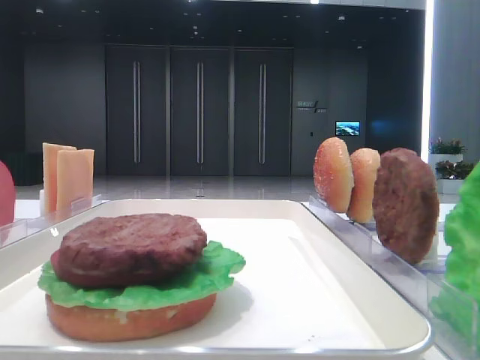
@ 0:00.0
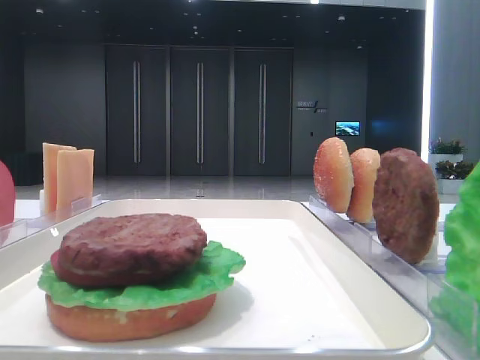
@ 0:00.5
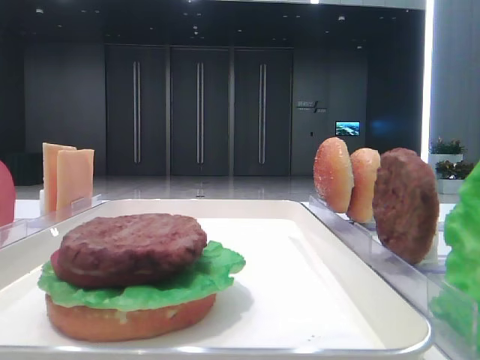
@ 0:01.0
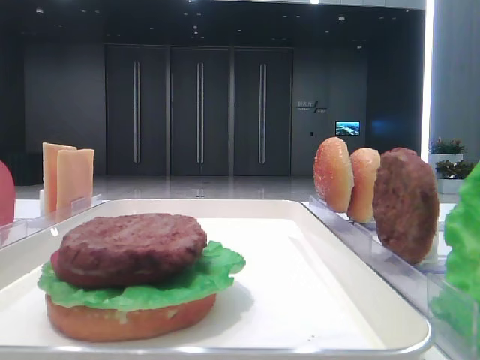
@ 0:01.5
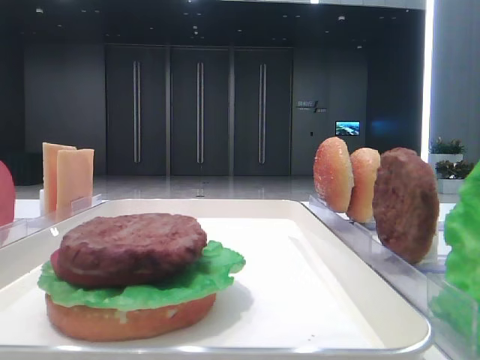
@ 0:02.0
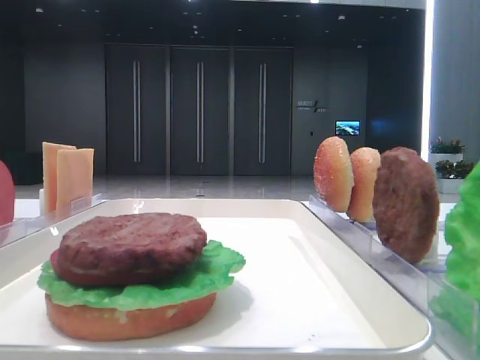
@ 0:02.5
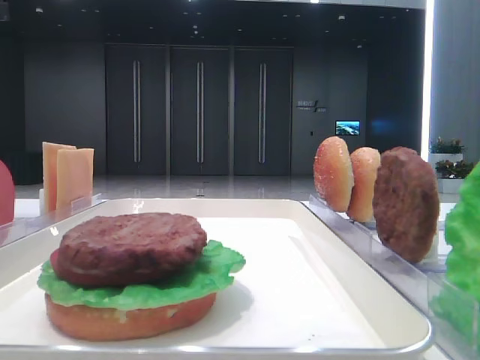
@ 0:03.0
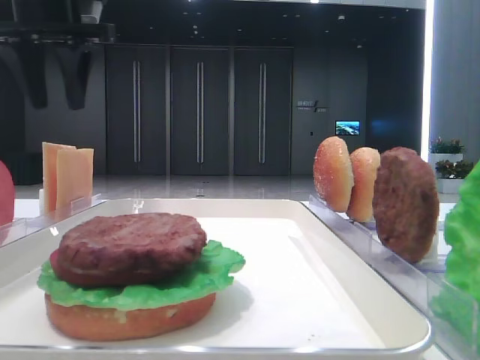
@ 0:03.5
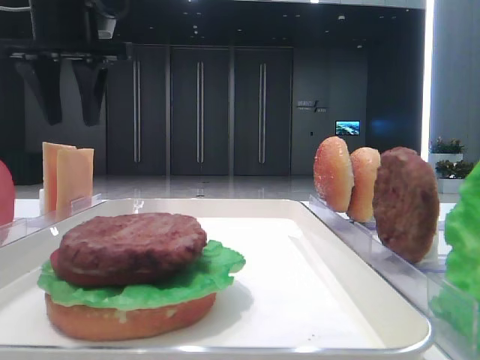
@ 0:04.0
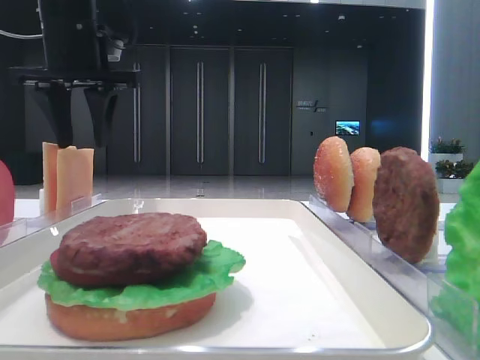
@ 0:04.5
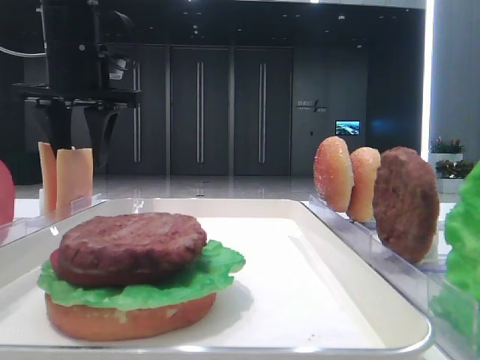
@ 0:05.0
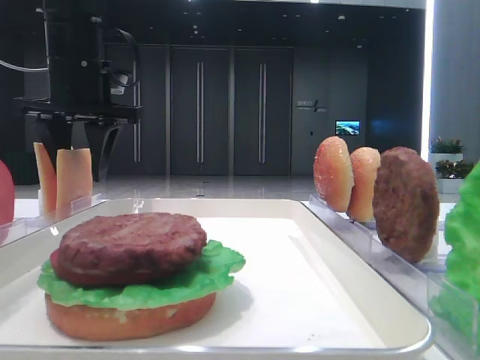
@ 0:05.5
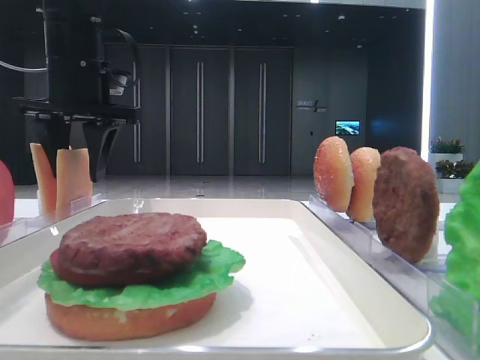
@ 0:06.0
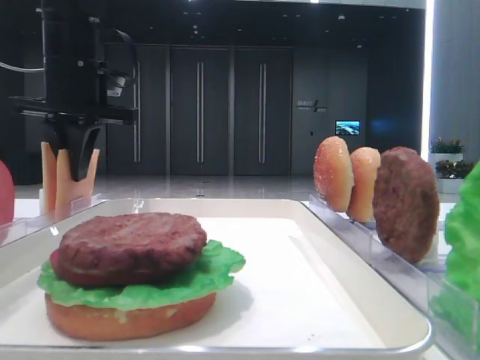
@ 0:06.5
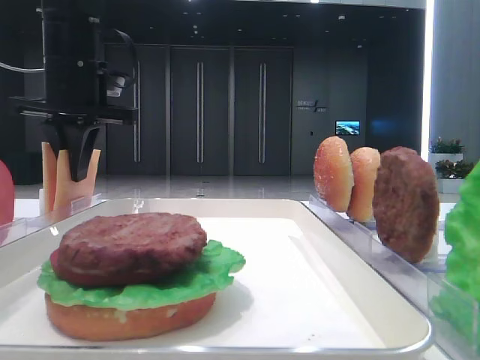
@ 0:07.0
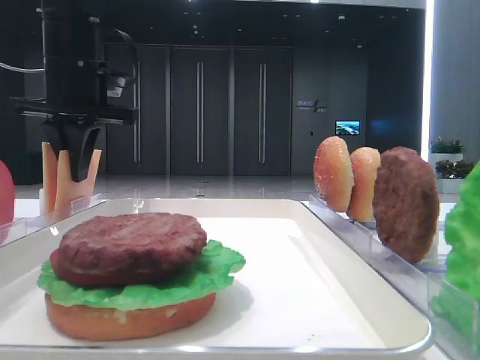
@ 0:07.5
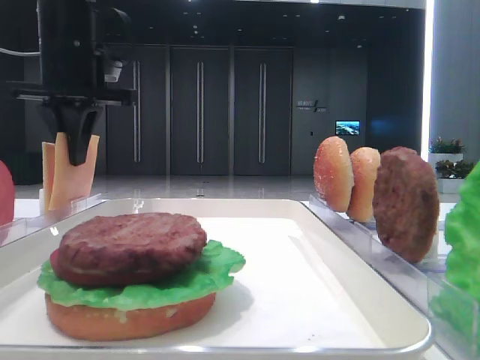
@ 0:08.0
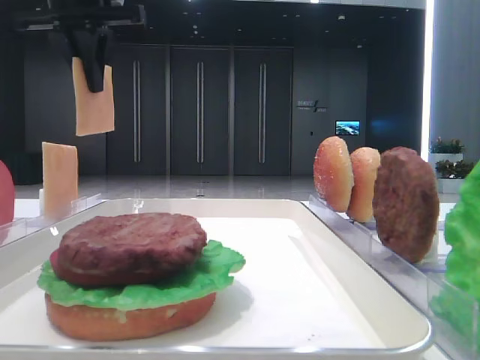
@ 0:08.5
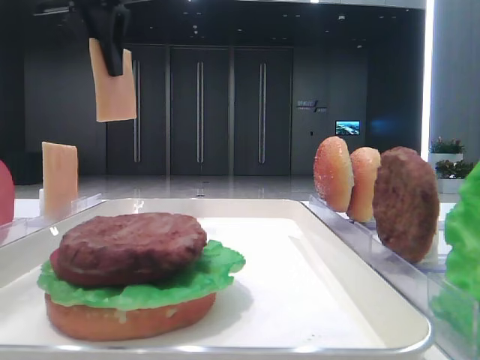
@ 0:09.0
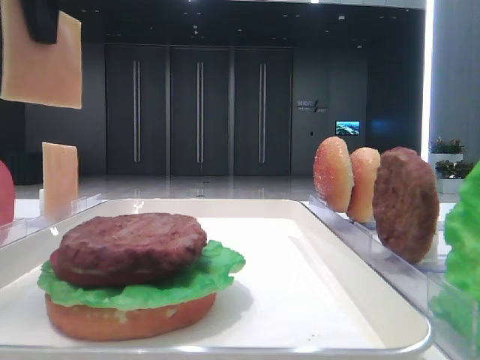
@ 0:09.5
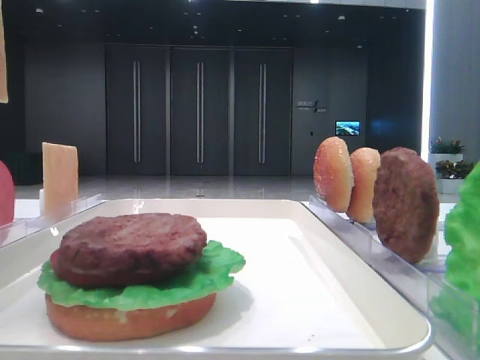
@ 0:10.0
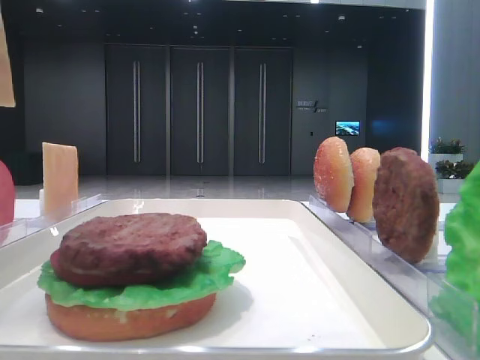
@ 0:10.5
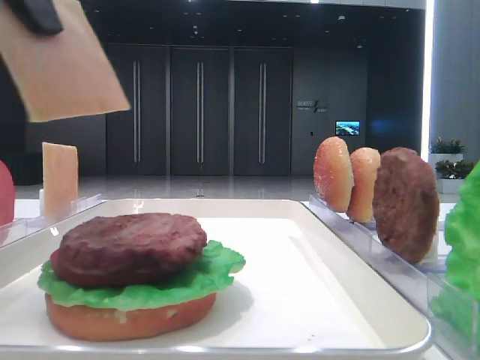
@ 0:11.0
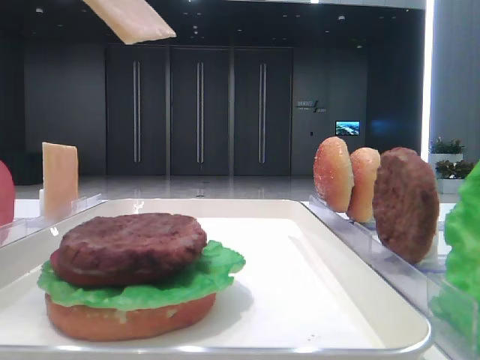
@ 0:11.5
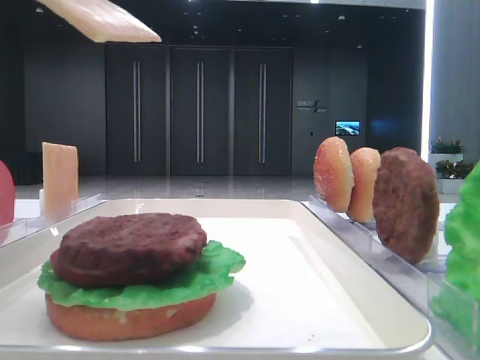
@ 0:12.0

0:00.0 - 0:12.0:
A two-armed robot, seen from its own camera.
Step, 0:00.0 - 0:07.5: Pick up the cheese slice with the left hand.
0:02.0 - 0:04.0: The left gripper moves forward and to the right, some 30 cm.
0:04.0 - 0:06.0: The left gripper heads downward, covering approximately 5 cm.
0:06.0 - 0:08.0: The left gripper closes.
0:08.0 - 0:10.0: The left gripper heads backward and upward, covering about 20 cm.
0:10.0 - 0:12.0: The left gripper shifts about 10 cm downward.

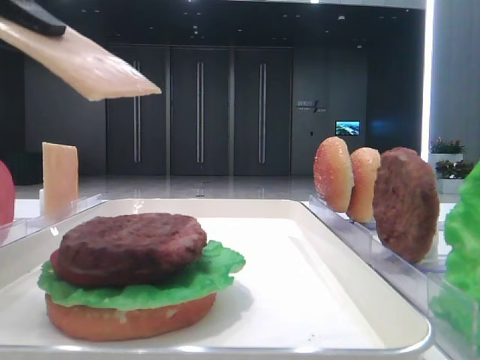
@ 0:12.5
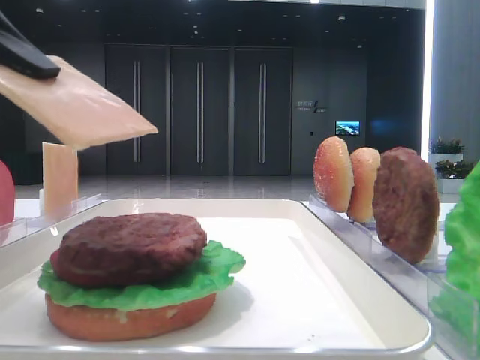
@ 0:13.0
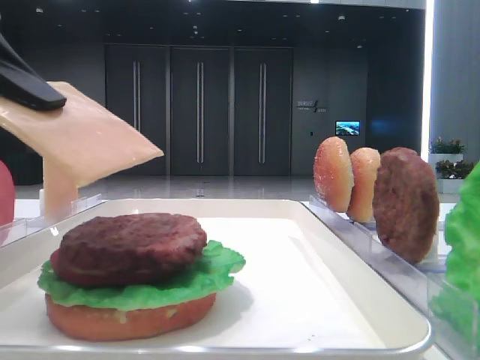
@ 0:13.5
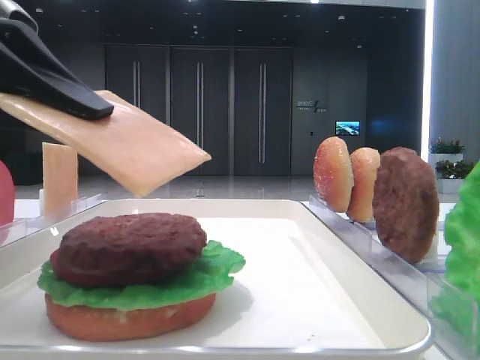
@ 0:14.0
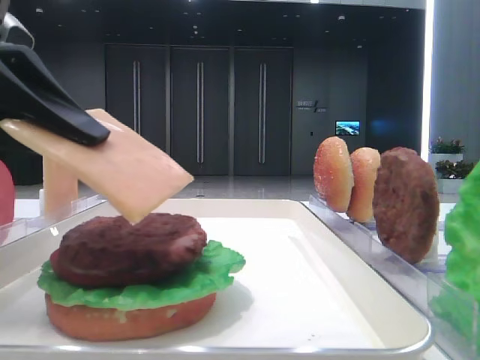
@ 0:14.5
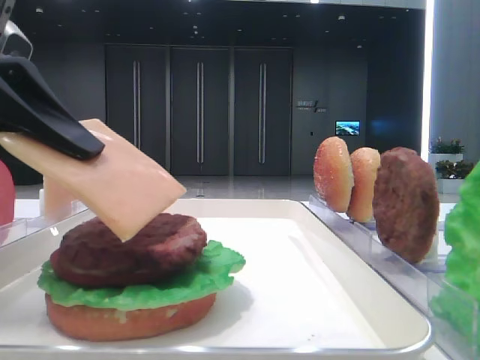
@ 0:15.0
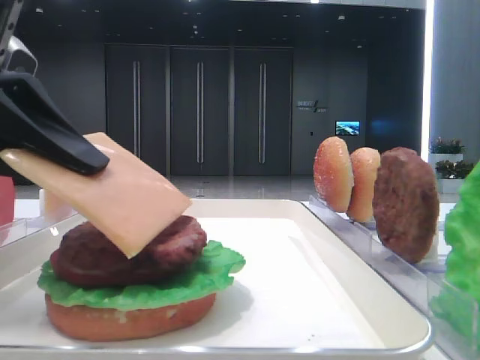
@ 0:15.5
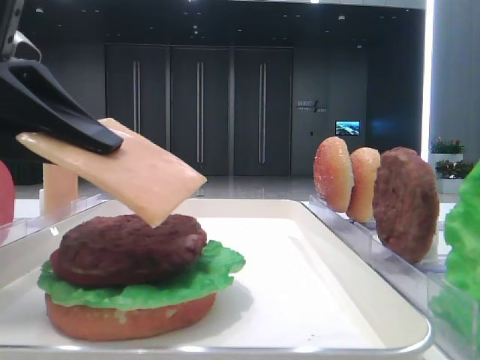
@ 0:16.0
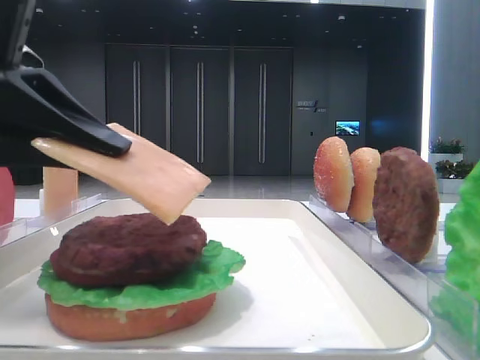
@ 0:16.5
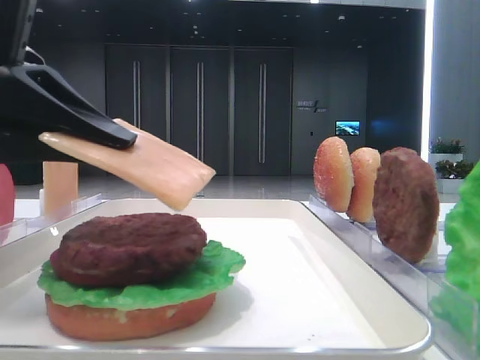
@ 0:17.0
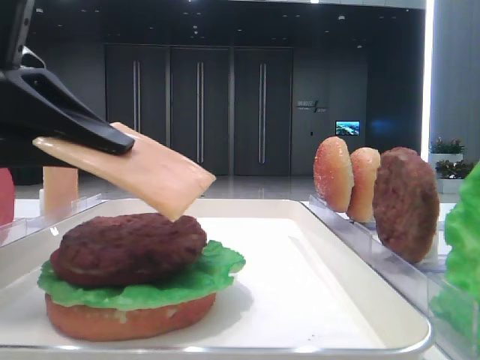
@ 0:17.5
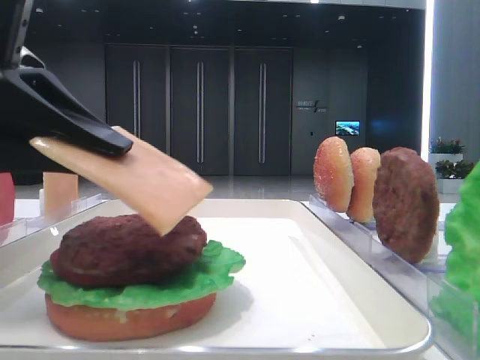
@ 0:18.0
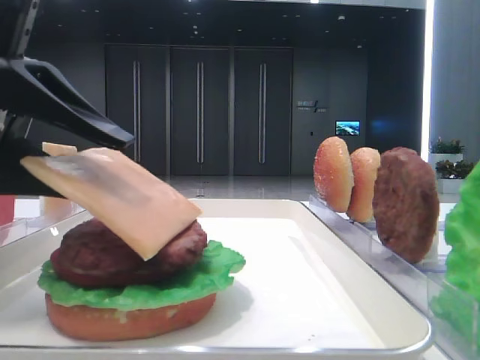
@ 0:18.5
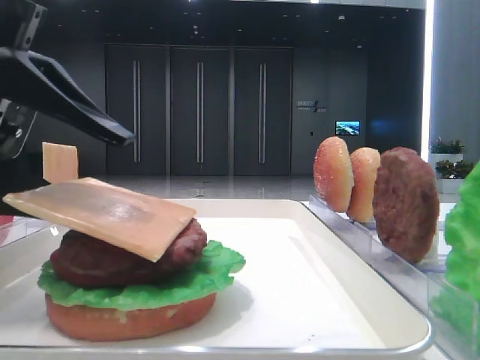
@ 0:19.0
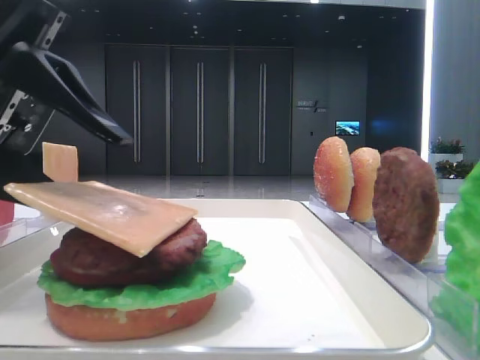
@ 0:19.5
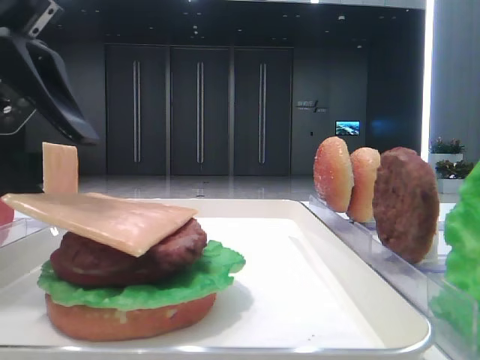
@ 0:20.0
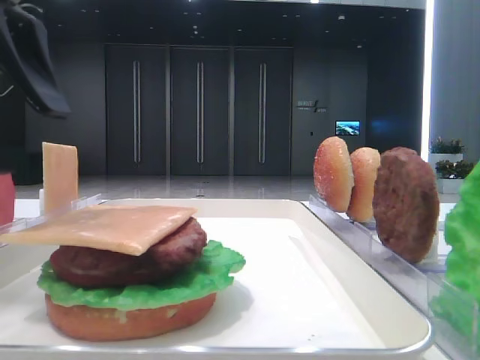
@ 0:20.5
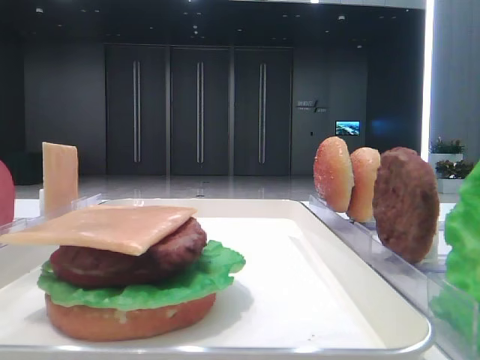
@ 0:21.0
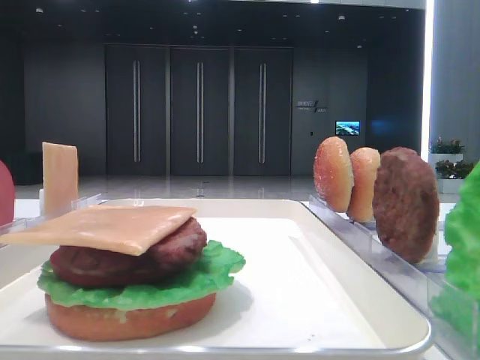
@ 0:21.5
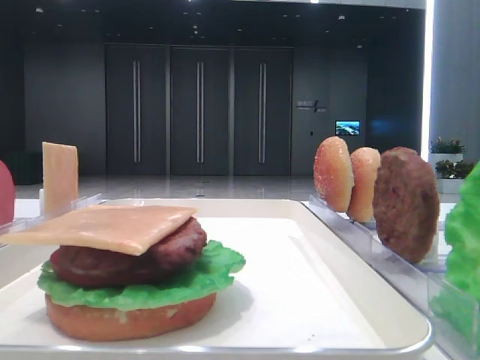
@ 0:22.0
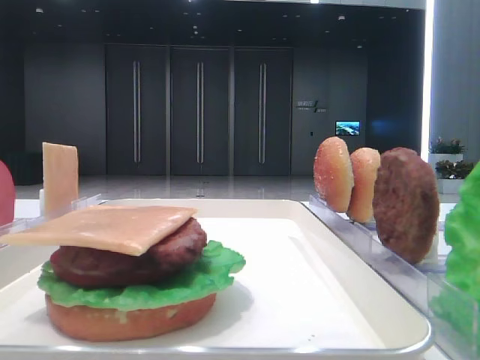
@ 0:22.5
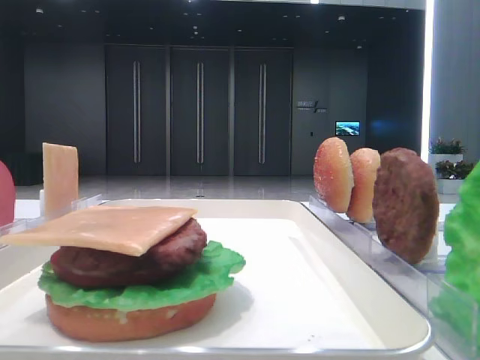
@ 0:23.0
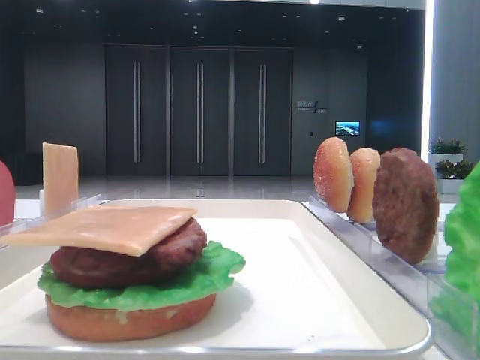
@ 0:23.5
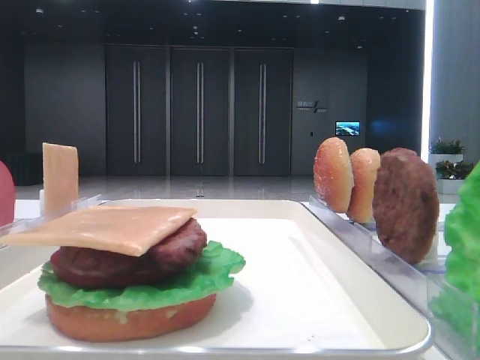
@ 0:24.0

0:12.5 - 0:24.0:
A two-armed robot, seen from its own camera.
Step, 0:12.5 - 0:20.0: Place the cheese slice on the patty with the left hand.
0:12.5 - 0:14.5: The left gripper moves downward, roughly 5 cm.
0:14.5 - 0:16.5: There are only small adjustments of the grippers.
0:16.5 - 0:18.5: The left gripper opens up.
0:18.5 - 0:20.0: The left gripper opens its fingers.
0:20.0 - 0:22.0: The left gripper is displaced upward and to the left by roughly 20 cm.

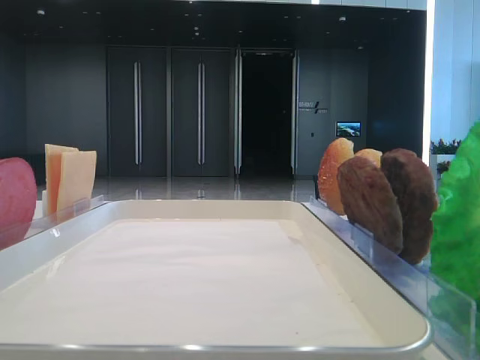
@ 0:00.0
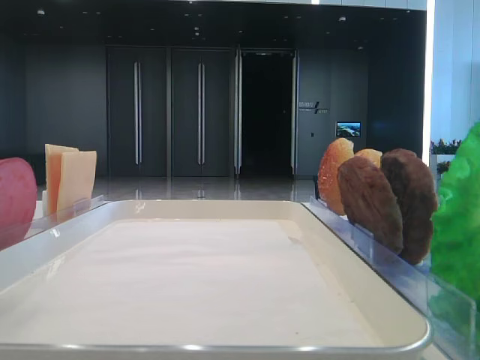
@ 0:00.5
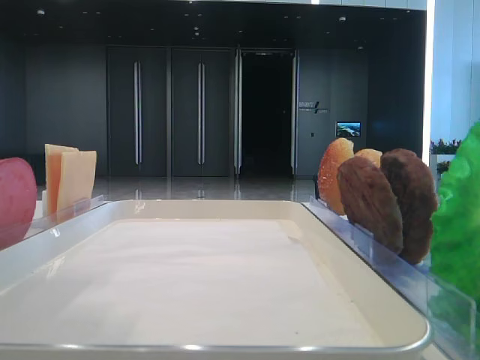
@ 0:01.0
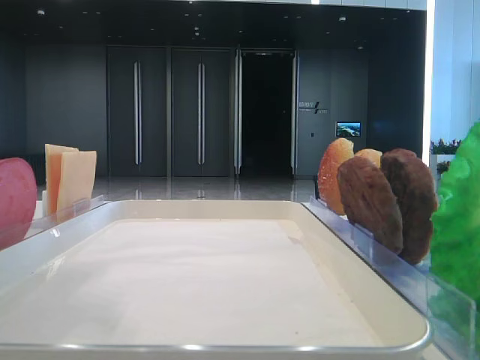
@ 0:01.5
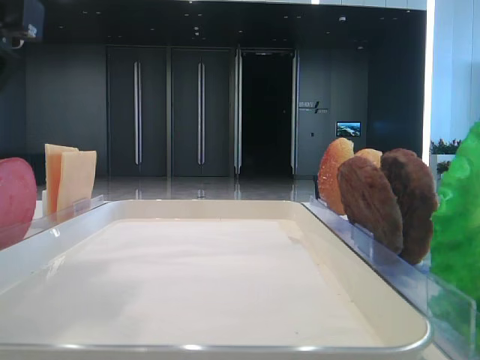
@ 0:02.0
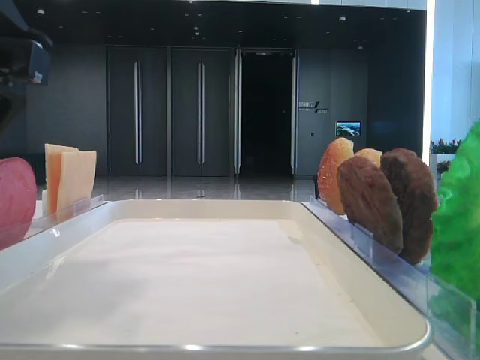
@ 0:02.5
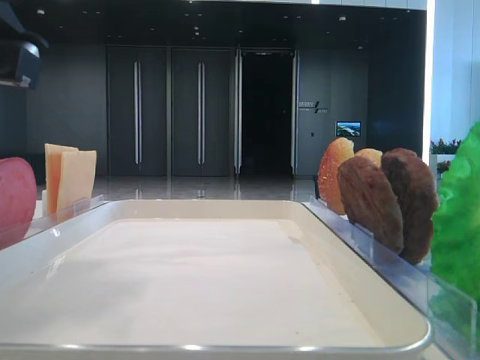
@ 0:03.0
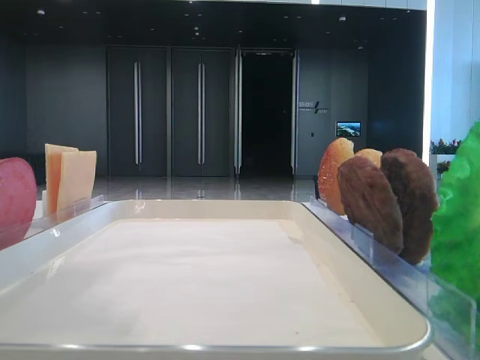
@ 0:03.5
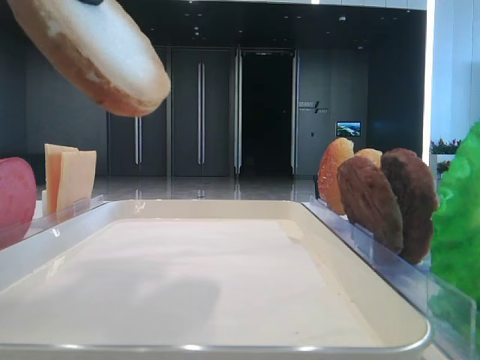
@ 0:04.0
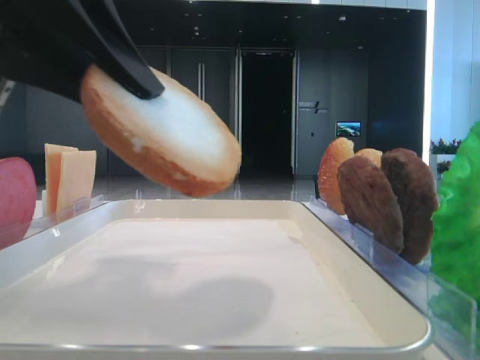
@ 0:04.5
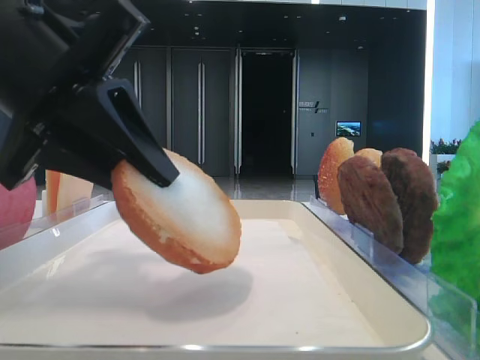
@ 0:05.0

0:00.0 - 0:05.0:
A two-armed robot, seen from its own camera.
0:00.0 - 0:02.5: The left gripper travels to the right and downward by some 15 cm.
0:02.5 - 0:05.0: The left gripper reaches some 10 cm upward, then returns, and closes.
